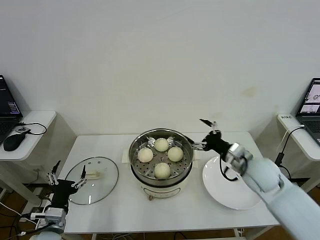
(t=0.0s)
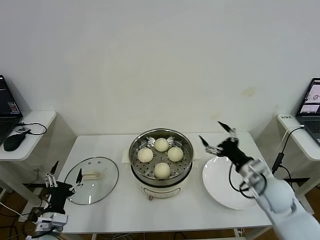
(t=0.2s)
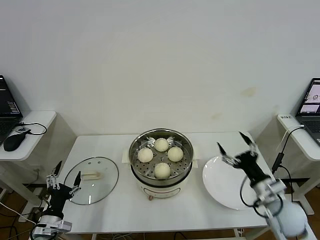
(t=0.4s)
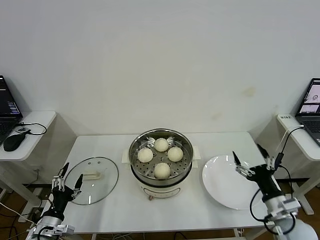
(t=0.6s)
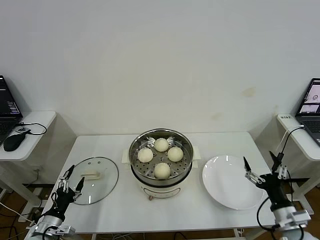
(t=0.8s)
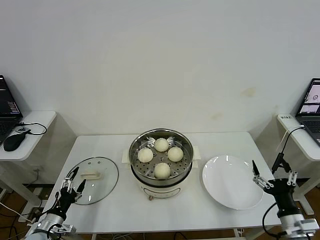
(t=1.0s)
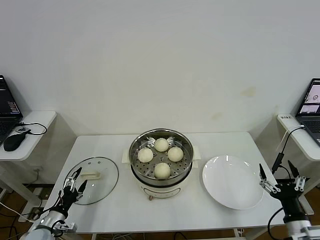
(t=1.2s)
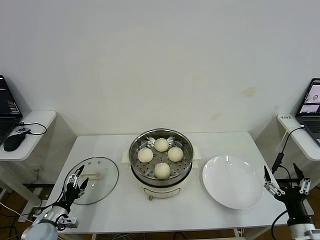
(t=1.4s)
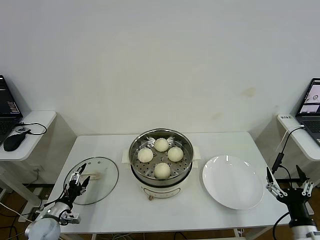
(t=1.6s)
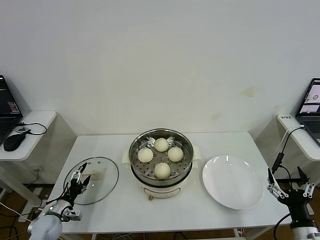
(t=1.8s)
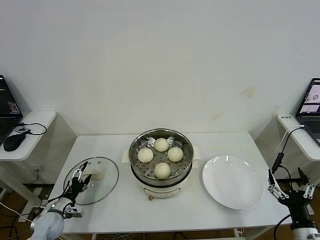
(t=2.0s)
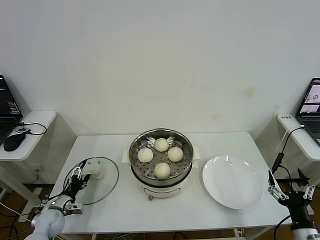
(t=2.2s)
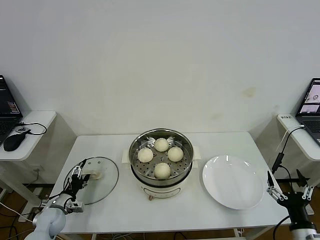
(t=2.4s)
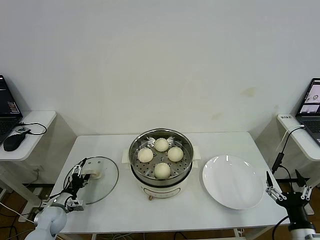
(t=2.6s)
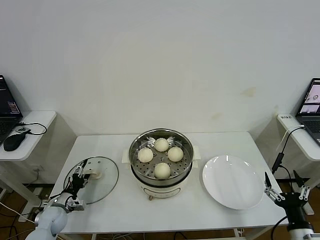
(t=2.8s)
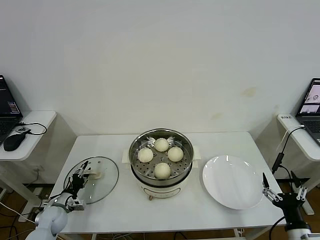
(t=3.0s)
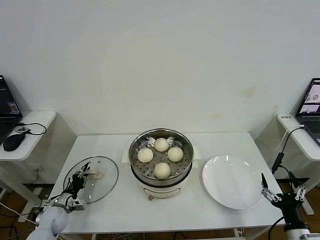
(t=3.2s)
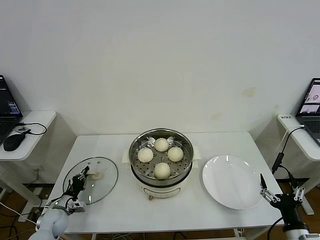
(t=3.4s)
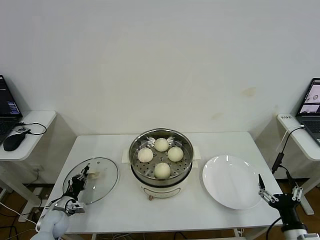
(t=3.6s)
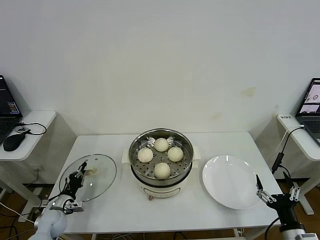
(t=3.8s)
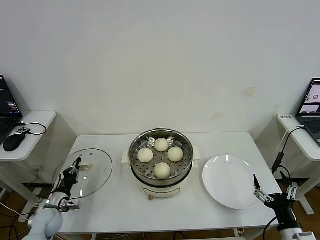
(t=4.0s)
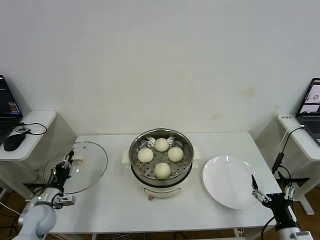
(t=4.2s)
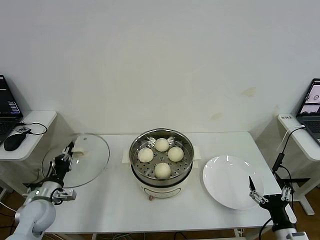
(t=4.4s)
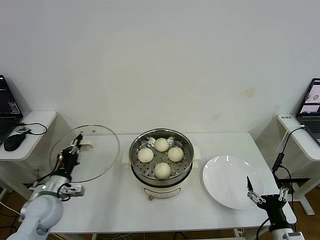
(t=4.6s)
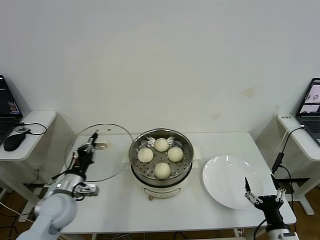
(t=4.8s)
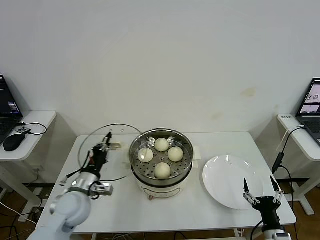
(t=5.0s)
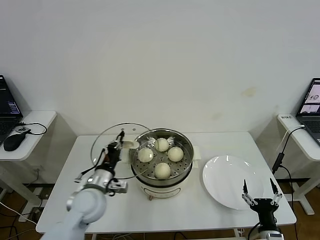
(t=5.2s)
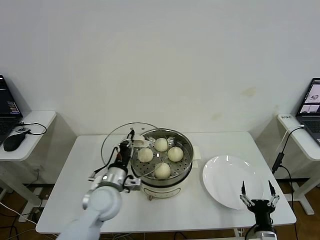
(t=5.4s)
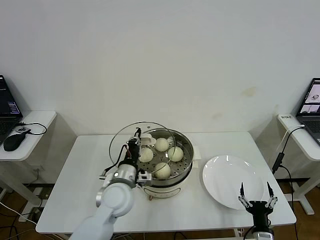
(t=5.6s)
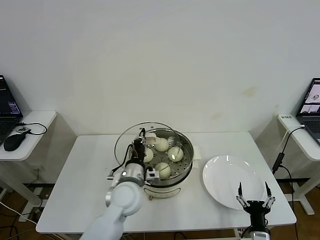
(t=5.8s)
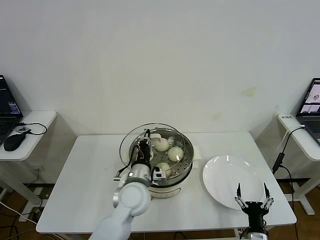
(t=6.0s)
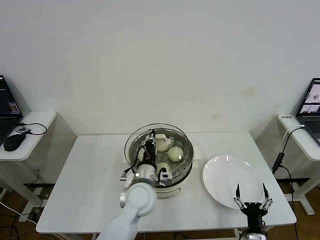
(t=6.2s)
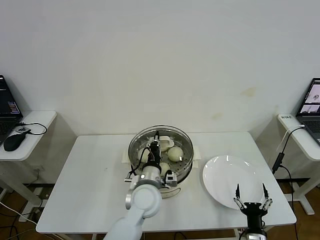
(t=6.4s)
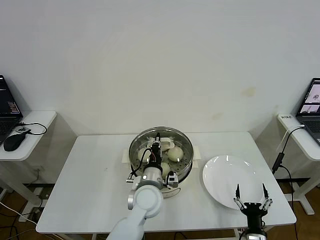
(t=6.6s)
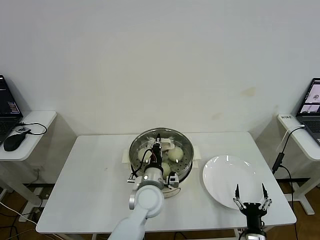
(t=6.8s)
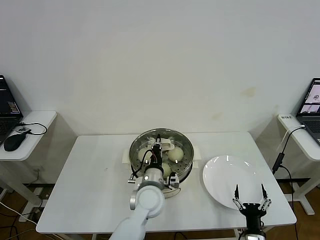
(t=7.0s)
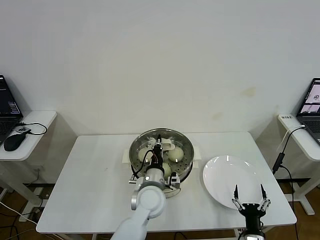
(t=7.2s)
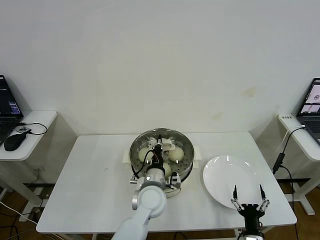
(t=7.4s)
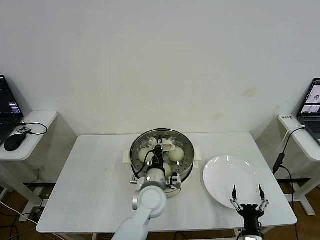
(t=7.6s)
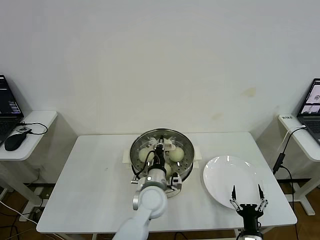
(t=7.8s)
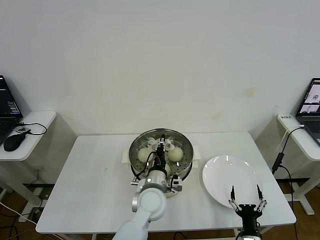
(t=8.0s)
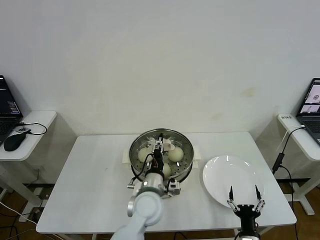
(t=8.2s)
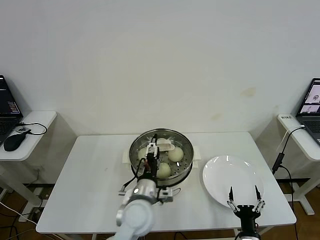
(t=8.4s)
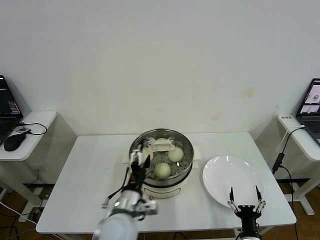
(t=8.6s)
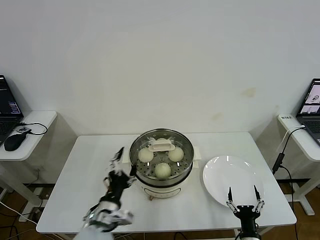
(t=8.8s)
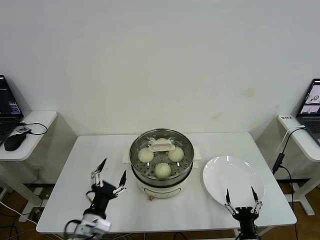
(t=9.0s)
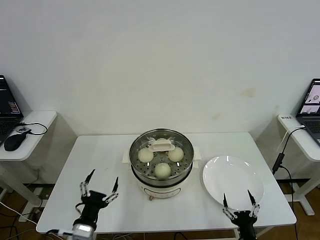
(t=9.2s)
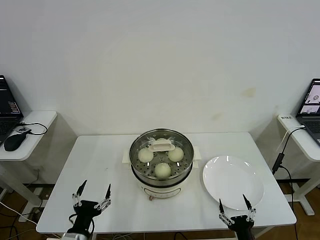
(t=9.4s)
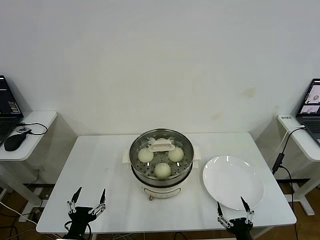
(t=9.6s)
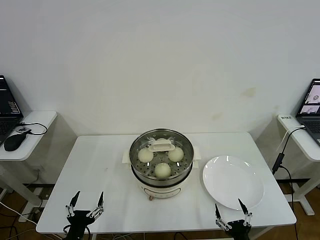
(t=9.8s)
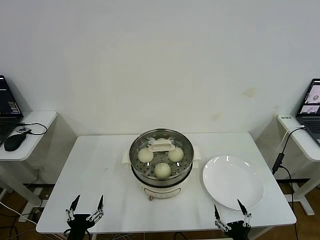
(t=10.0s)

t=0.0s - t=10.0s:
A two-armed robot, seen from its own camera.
Step, t=0.0s - t=3.4s: Grasp the pot lid with left gripper.
Step, t=3.6s - t=8.2s: Place the pot lid on the steamer with left gripper.
t=0.0s - t=1.4s: The left gripper moves downward and to the left, approximately 15 cm. The right gripper is displaced backward, to the right and downward by approximately 25 cm.
t=1.4s - t=2.8s: The left gripper is displaced forward by about 5 cm.
t=2.8s - t=4.2s: The left gripper travels upward by some 5 cm, and closes its fingers.
t=4.2s - t=5.8s: The left gripper goes approximately 35 cm to the right and upward, while the right gripper heads downward and to the left, covering about 10 cm.
t=5.8s - t=7.2s: The left gripper is displaced to the right by about 5 cm.
t=7.2s - t=8.6s: The left gripper is displaced backward and to the left by approximately 10 cm, and opens up.
t=8.6s - t=10.0s: The right gripper is displaced backward by some 5 cm. Meanwhile the left gripper travels to the left, backward and downward by about 25 cm.
